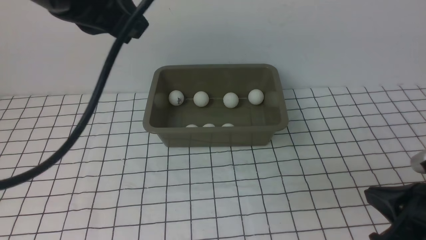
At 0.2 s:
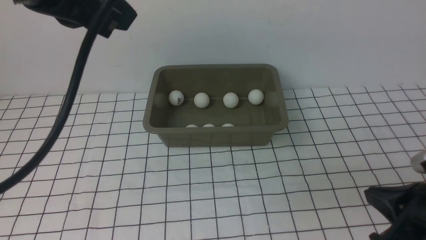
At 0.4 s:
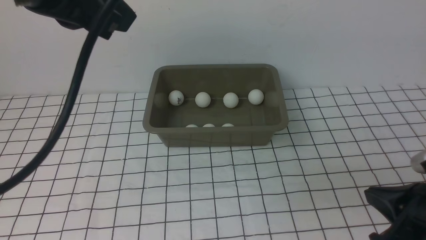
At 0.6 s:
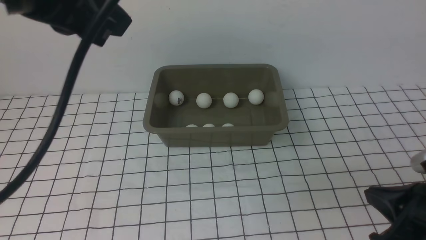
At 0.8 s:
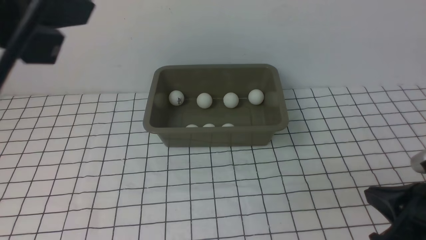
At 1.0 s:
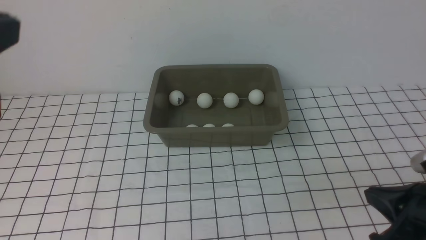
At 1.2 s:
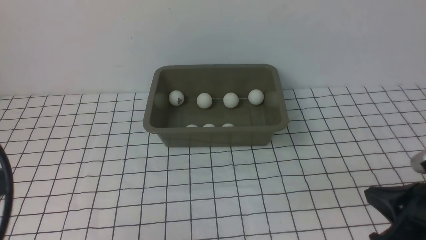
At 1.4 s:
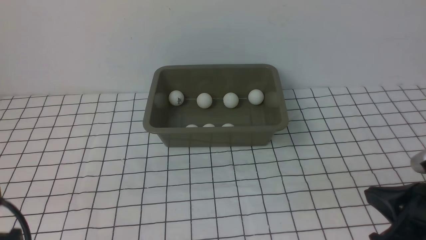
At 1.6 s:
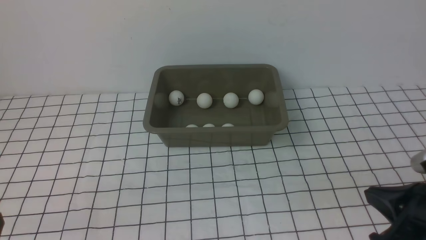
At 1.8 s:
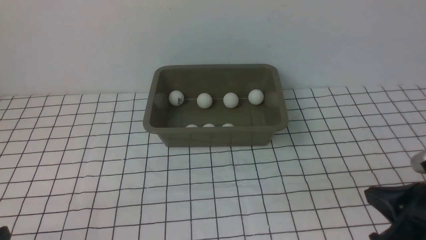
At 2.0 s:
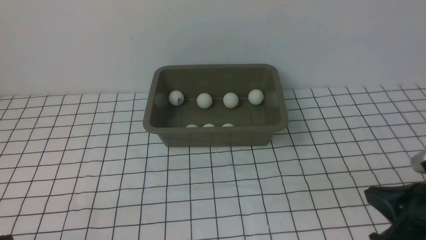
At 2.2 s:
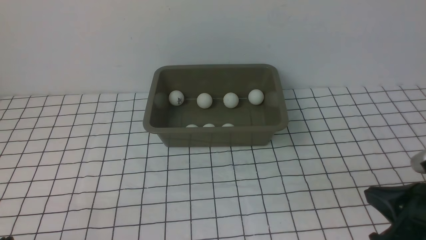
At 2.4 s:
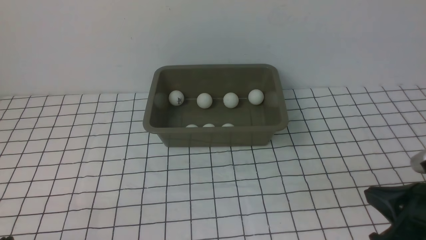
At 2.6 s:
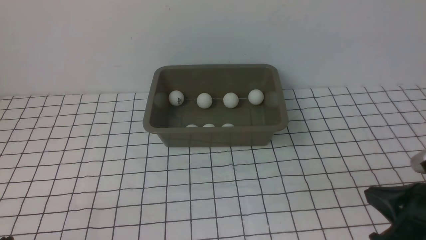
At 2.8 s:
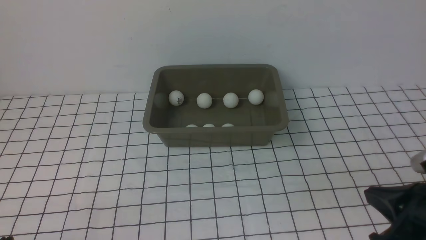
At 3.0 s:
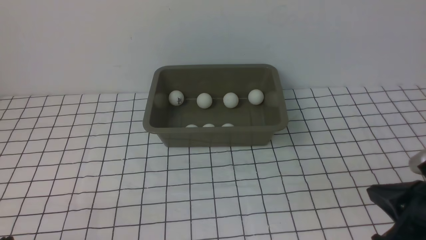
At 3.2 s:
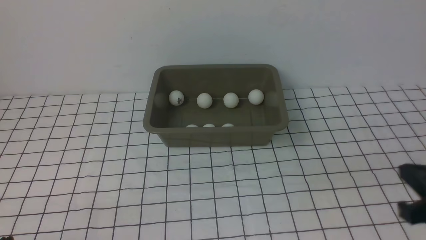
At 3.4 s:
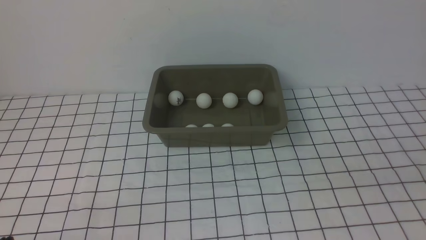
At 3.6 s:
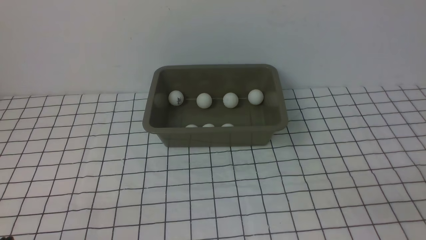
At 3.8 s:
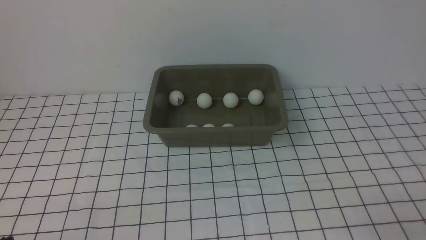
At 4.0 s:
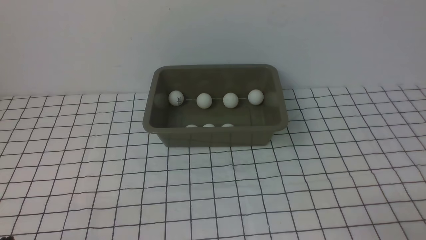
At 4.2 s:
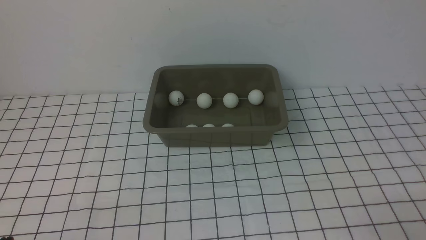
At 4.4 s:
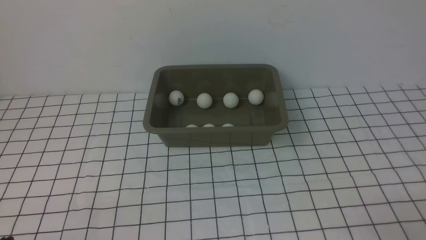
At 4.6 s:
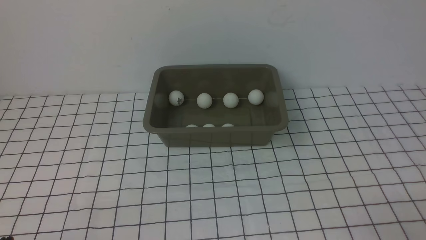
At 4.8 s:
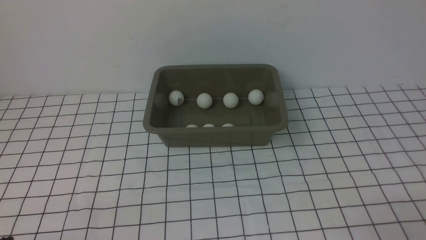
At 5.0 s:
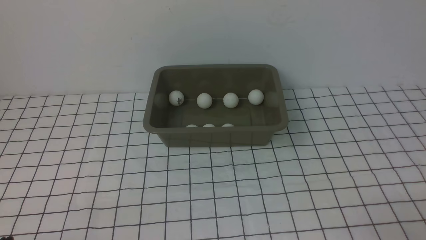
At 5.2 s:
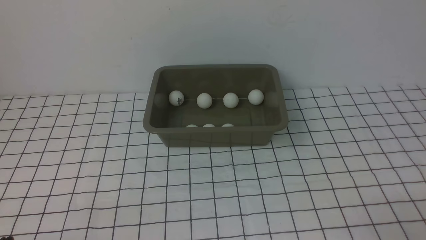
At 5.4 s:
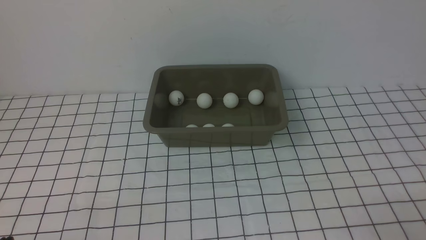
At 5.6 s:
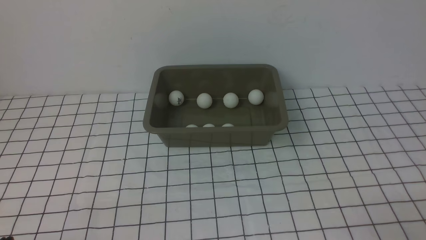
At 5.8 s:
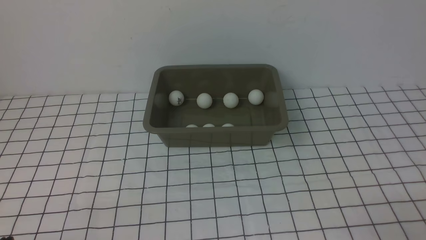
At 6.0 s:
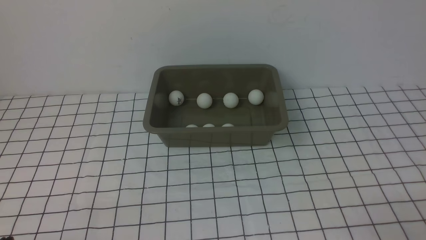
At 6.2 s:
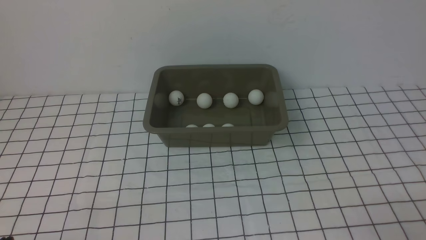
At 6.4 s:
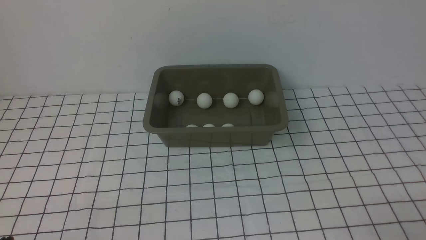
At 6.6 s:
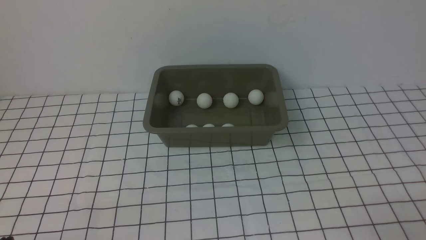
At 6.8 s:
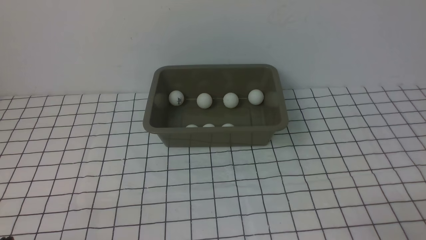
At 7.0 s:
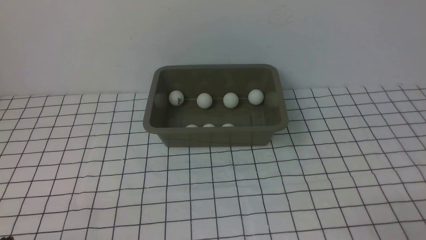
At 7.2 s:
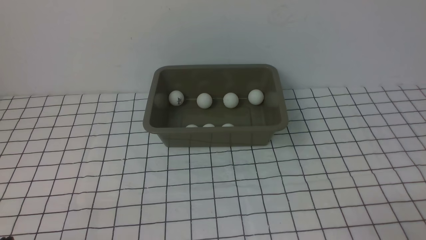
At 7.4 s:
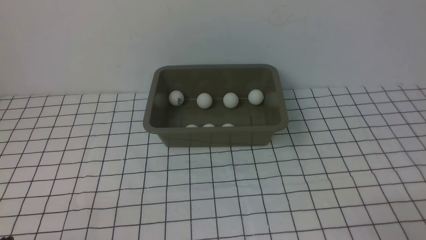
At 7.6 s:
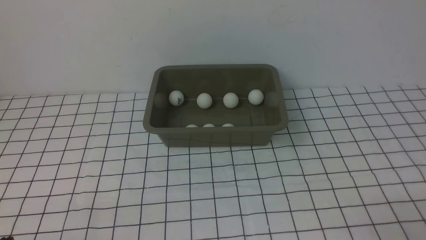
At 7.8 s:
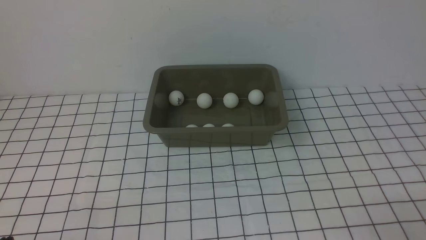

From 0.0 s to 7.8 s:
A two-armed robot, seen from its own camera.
From 0.0 s to 1.6 s: The left gripper moves downward, backward and to the left, roughly 35 cm.
From 1.6 s to 3.2 s: The grippers make only small movements.
From 3.2 s to 4.6 s: The right gripper is displaced backward and downward by some 10 cm.
From 4.6 s to 7.8 s: Neither gripper changes place.
